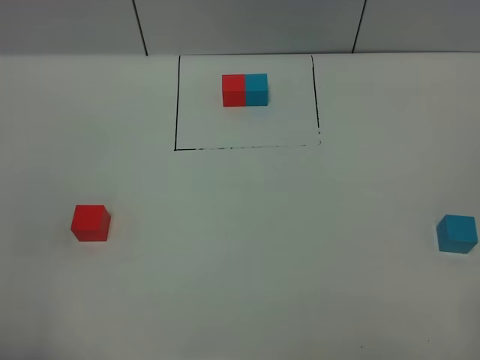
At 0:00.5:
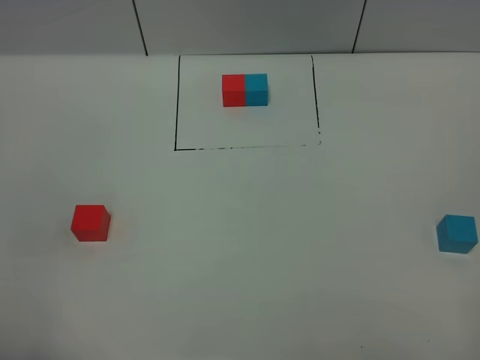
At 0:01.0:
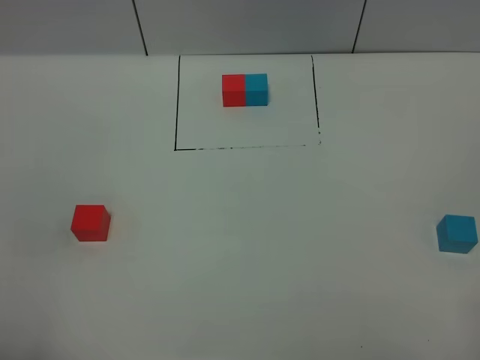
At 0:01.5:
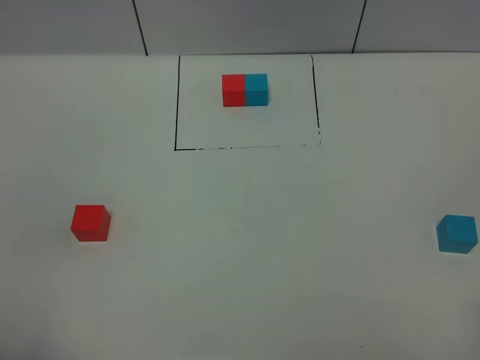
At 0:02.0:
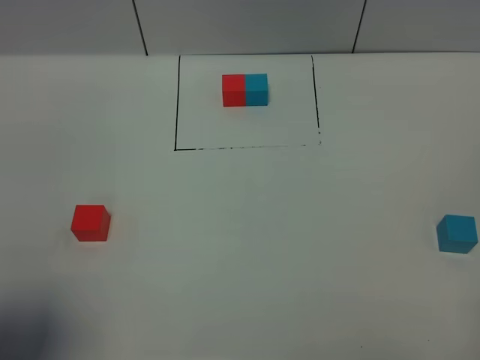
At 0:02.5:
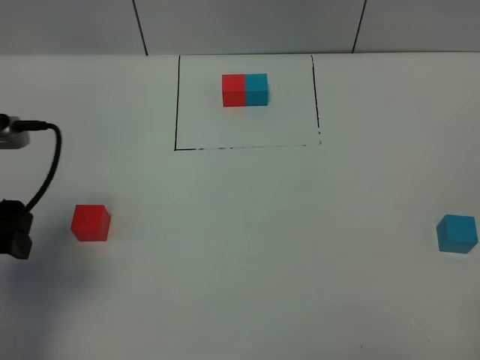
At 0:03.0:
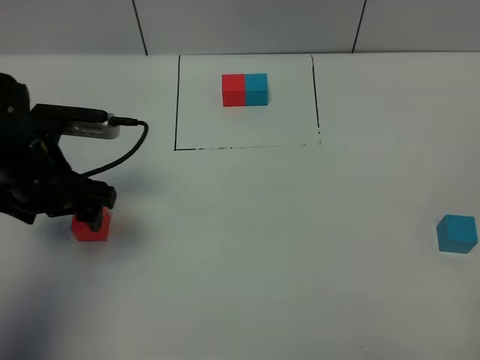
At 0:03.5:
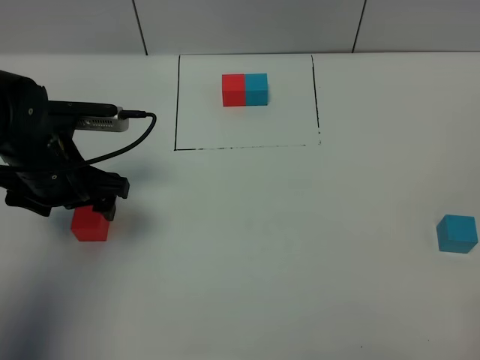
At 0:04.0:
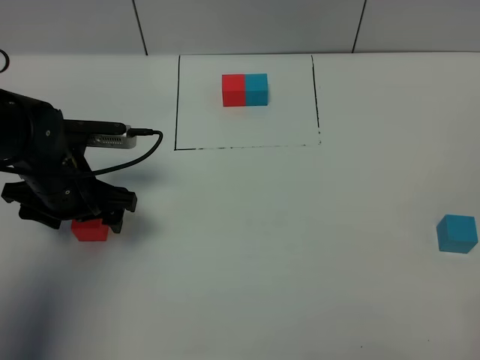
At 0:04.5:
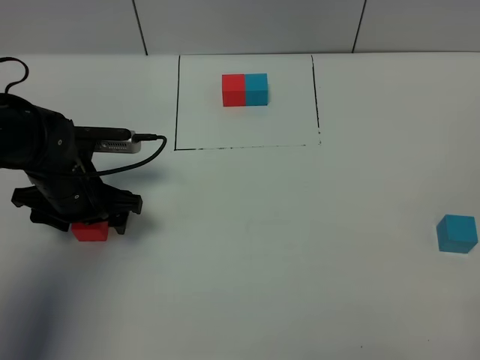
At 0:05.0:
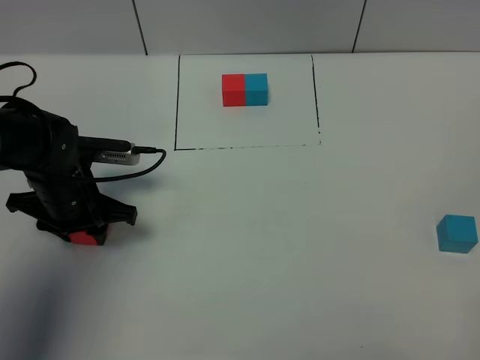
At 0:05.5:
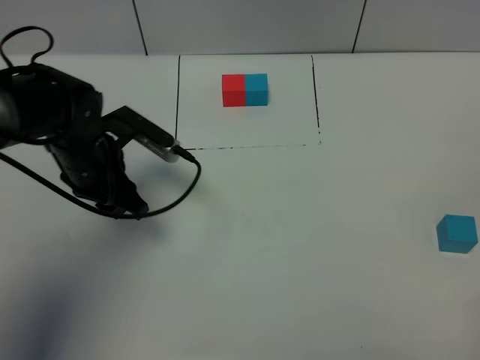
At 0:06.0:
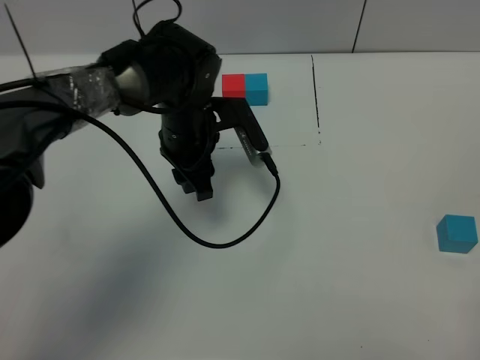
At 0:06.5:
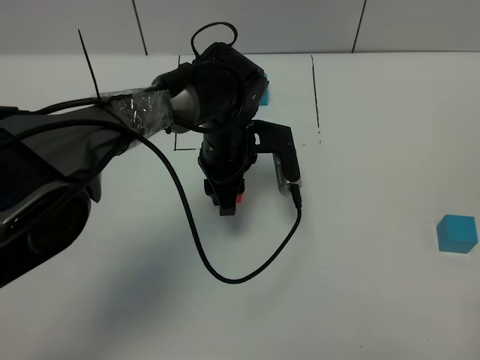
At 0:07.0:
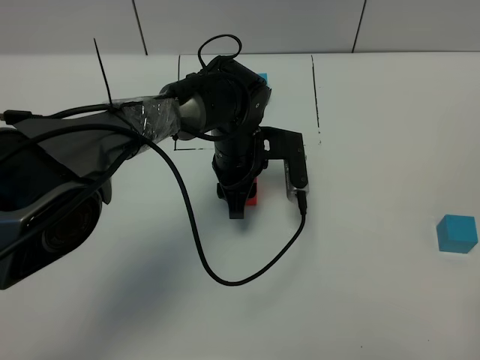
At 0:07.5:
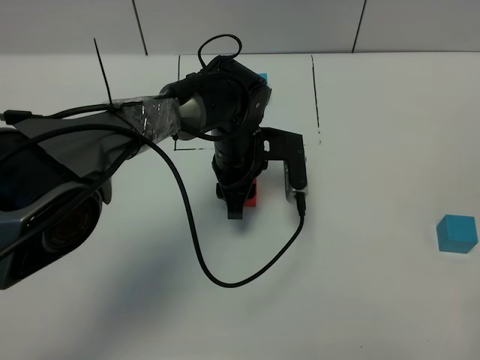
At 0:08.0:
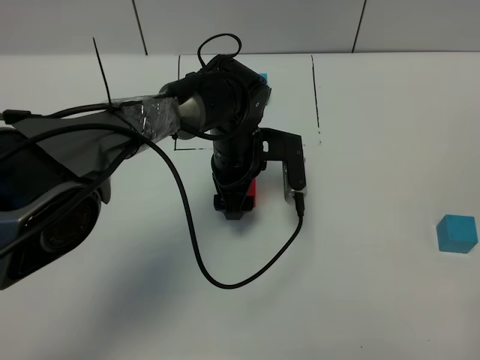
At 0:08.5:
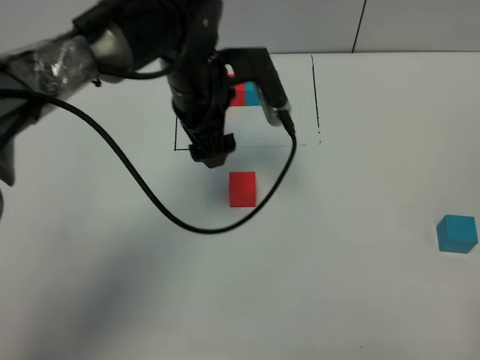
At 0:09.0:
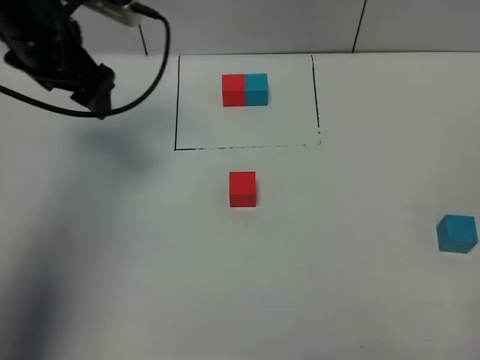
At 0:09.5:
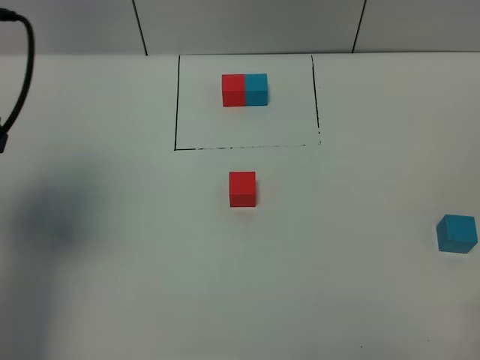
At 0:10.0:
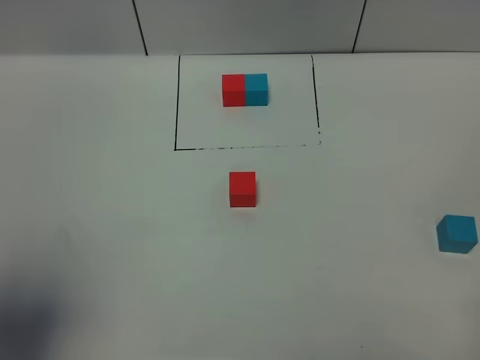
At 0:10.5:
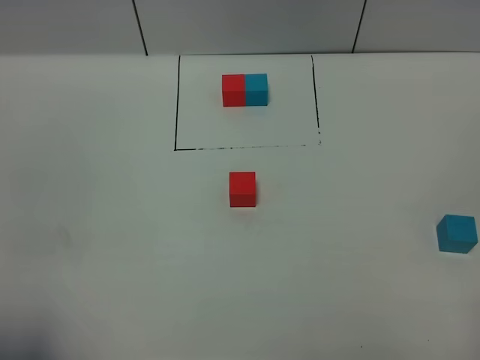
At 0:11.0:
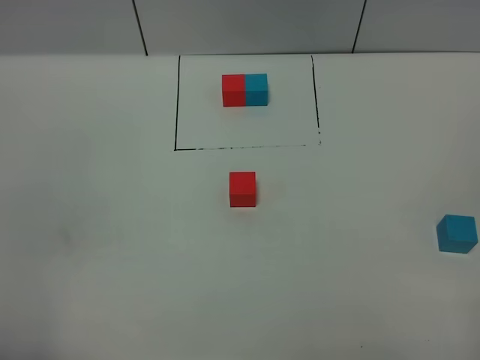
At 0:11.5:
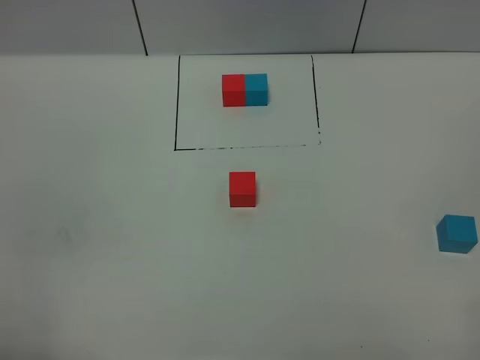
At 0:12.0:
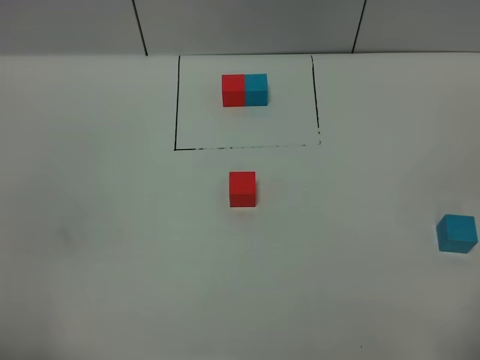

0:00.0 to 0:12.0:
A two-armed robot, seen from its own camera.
Task of the whole recording: According to the building block template in front, assemble the scattered blocks together.
Step, 0:02.5 to 0:08.0: Put the red cube in the center of the table.
0:00.0 to 0:02.0: The left gripper goes about 10 cm forward.
0:02.0 to 0:04.0: The left gripper shifts some 30 cm forward and downward.
0:04.0 to 0:06.0: The left gripper heads to the right and forward, covering about 15 cm, and closes up.
0:06.0 to 0:08.0: The left gripper shifts about 5 cm to the right, and opens.
0:08.0 to 0:10.0: The left gripper is displaced backward, to the left and upward by approximately 50 cm.
0:10.0 to 0:12.0: The left gripper is displaced downward and backward by roughly 15 cm.

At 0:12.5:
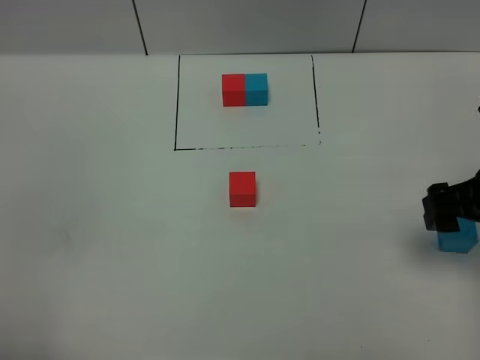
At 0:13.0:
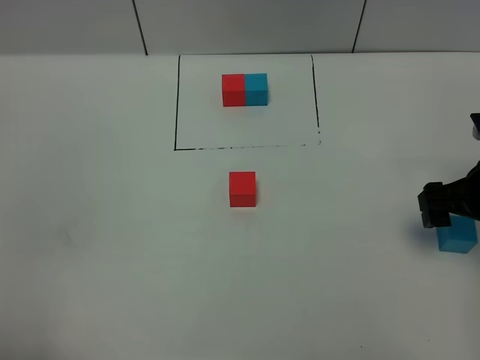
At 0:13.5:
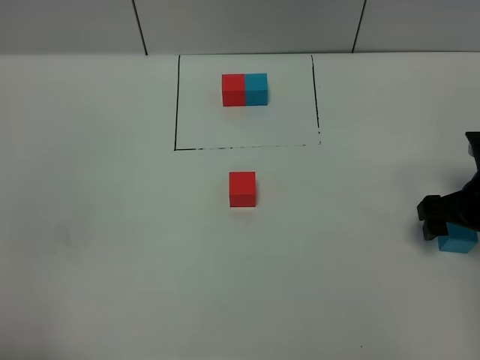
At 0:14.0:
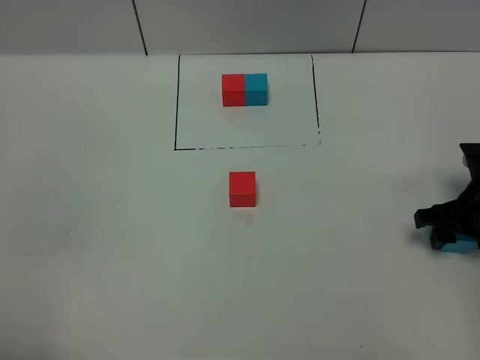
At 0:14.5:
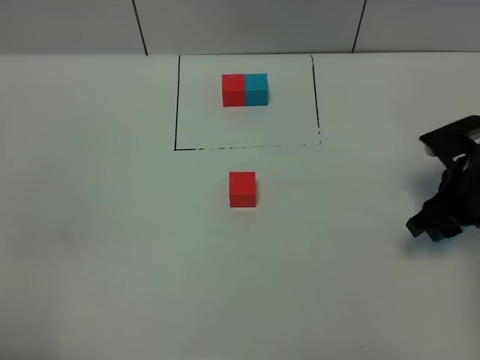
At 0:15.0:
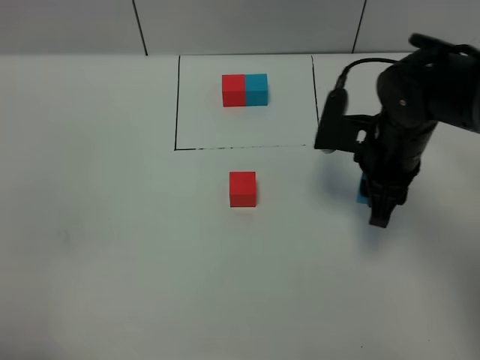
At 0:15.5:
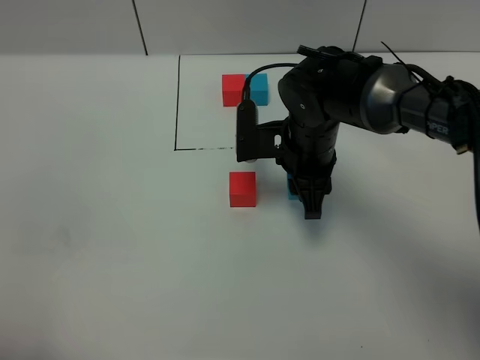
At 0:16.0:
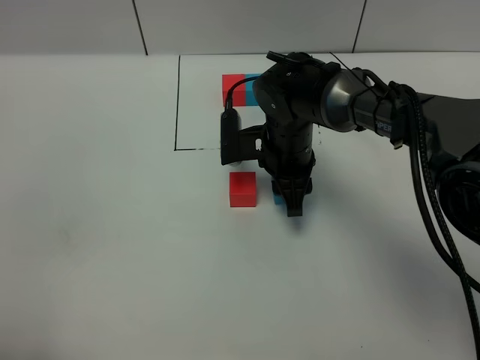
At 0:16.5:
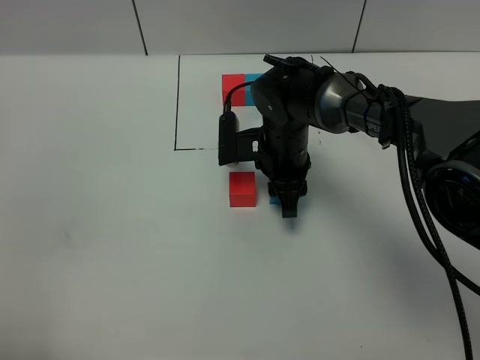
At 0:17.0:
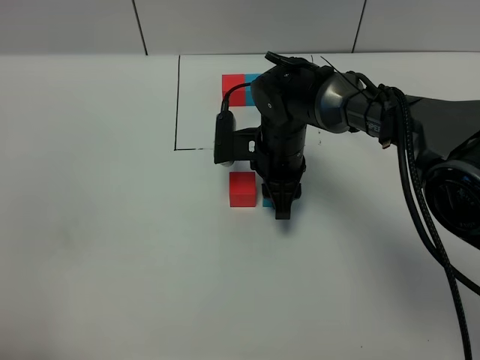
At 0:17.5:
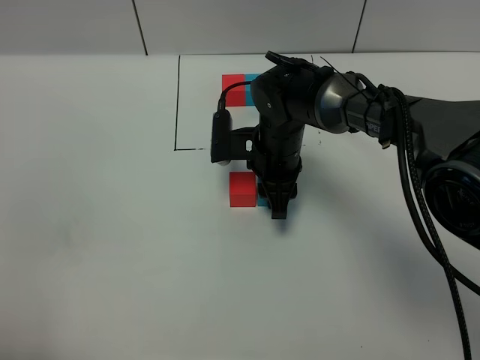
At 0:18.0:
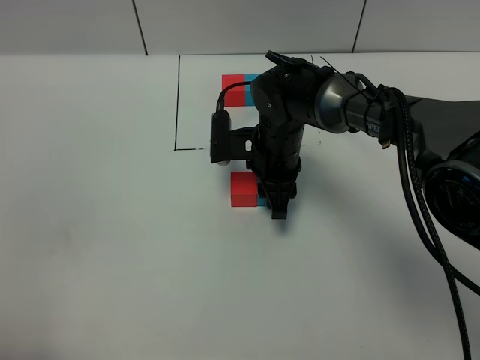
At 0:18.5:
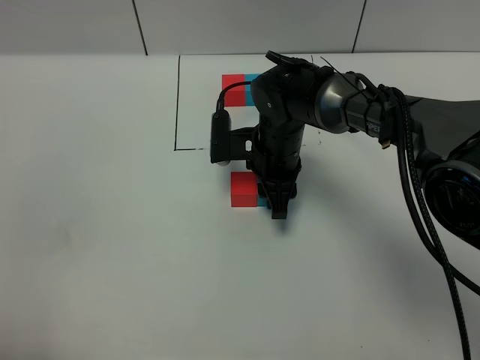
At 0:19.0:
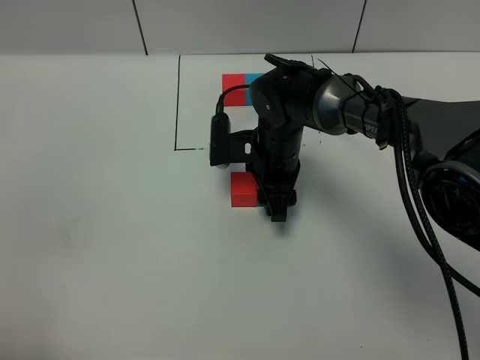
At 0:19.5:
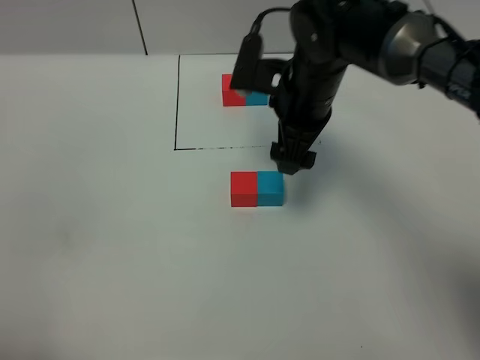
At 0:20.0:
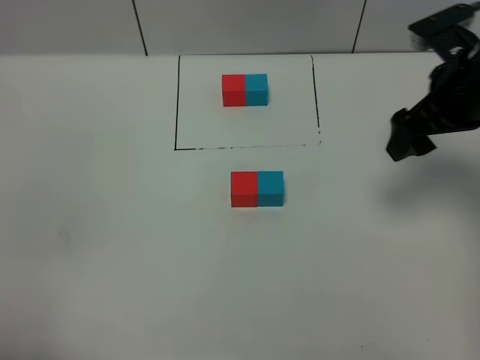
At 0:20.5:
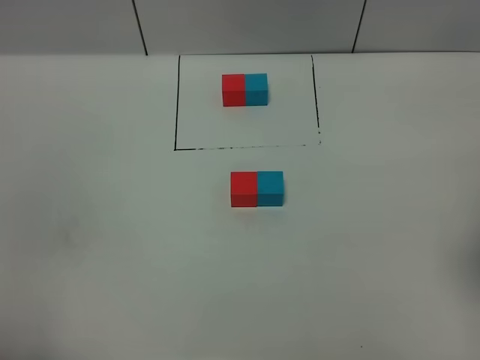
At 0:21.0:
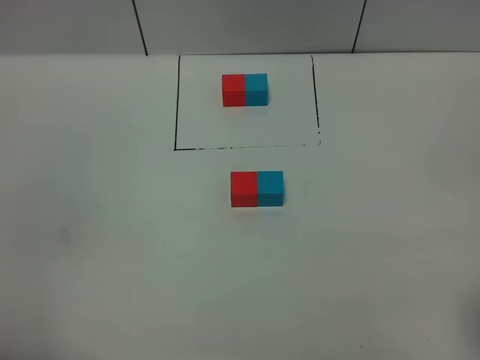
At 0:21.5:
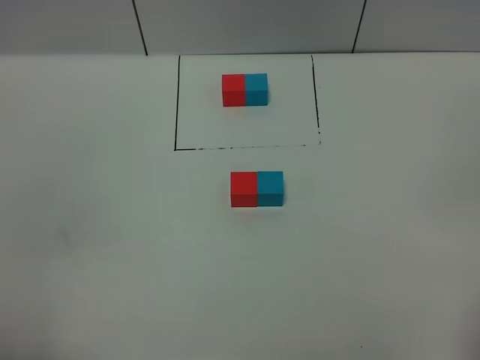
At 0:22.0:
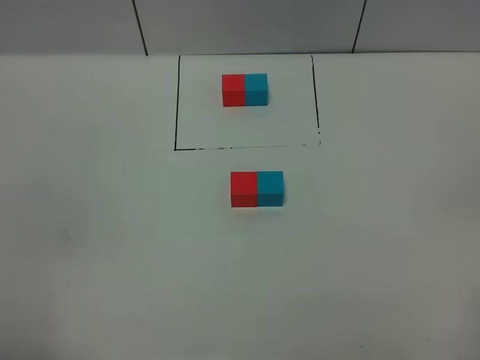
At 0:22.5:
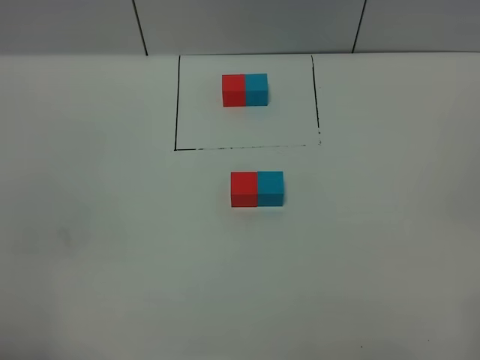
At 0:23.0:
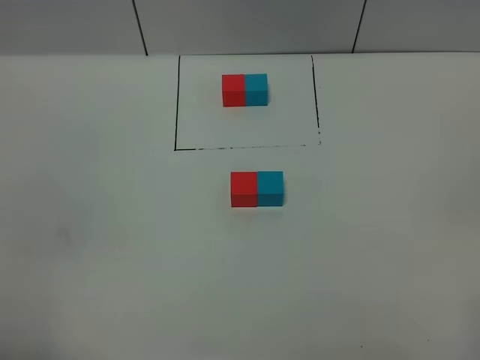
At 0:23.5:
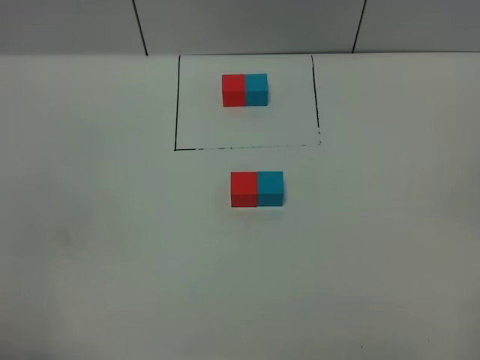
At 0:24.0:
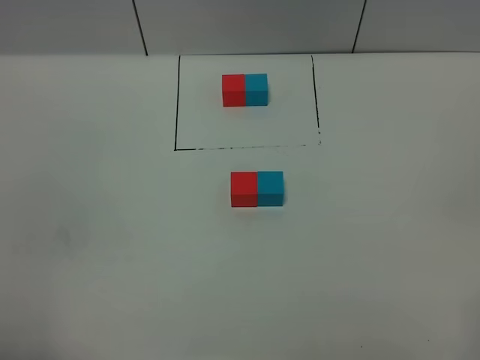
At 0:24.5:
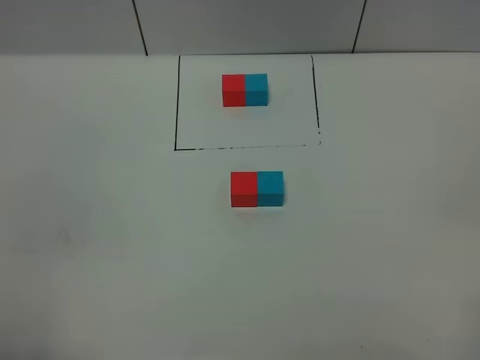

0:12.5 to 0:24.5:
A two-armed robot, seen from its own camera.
Task of the whole recording: According to the building block template in front, assemble the scattered blocks together.
Step, 0:12.5 to 0:19.0: Put the blue cube on the right of the red cube.
0:12.5 to 0:14.5: The right gripper heads downward and forward, covering roughly 10 cm, and closes its fingers.
0:14.5 to 0:16.5: The right gripper moves to the left and forward, roughly 25 cm.
0:16.5 to 0:18.5: The grippers move only a little.
0:18.5 to 0:20.5: The right gripper travels backward, to the right and upward by approximately 40 cm, and opens up.
0:22.5 to 0:24.5: The two grippers keep their place.
